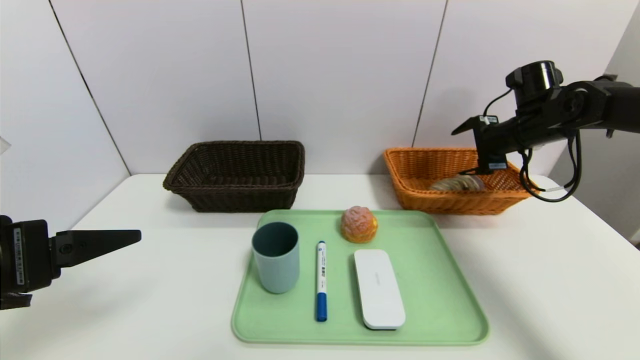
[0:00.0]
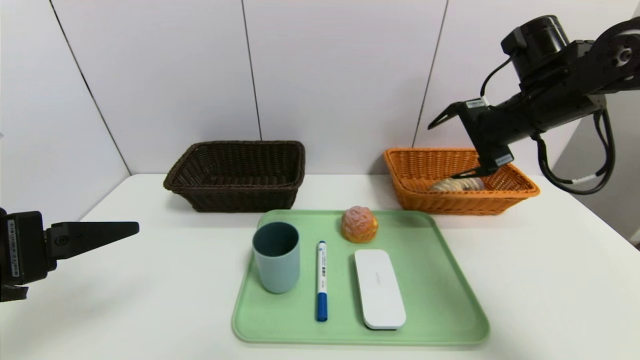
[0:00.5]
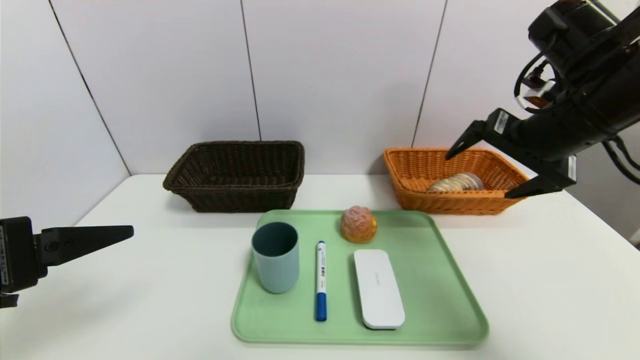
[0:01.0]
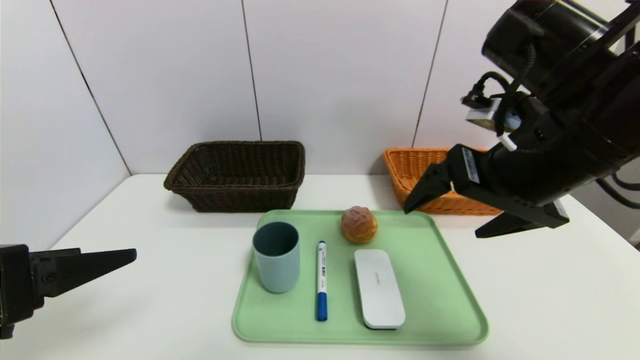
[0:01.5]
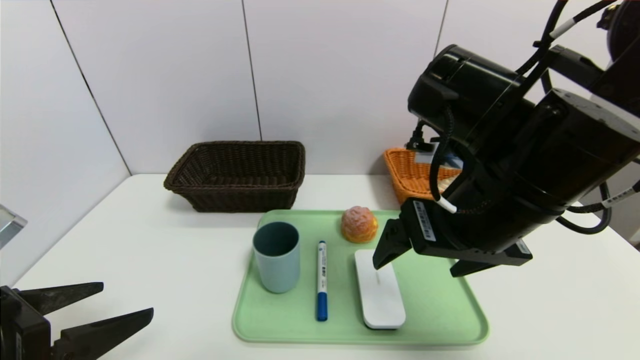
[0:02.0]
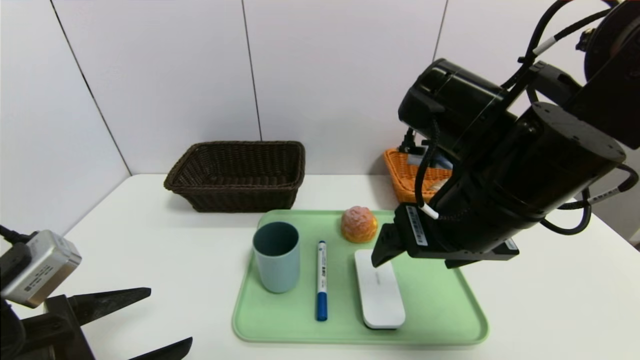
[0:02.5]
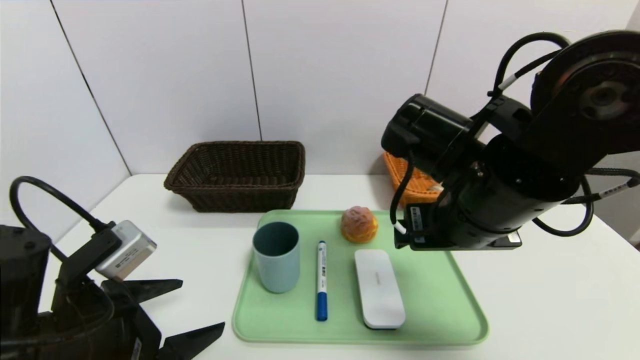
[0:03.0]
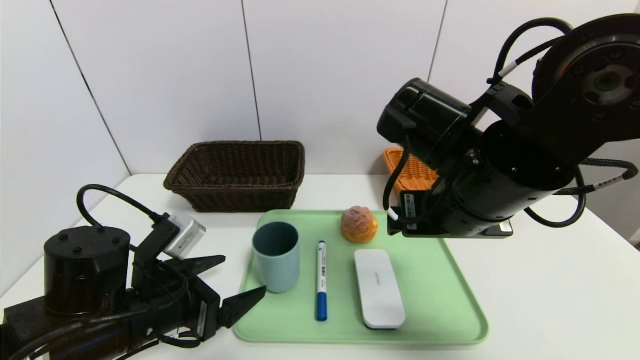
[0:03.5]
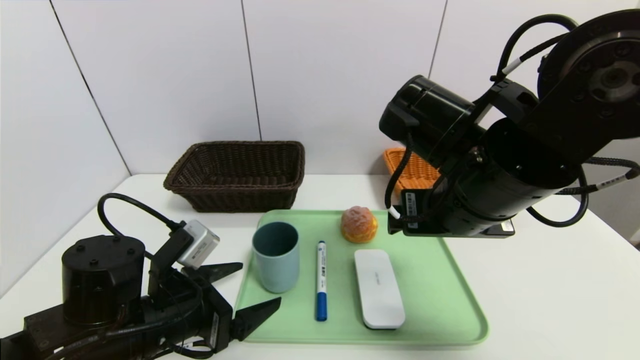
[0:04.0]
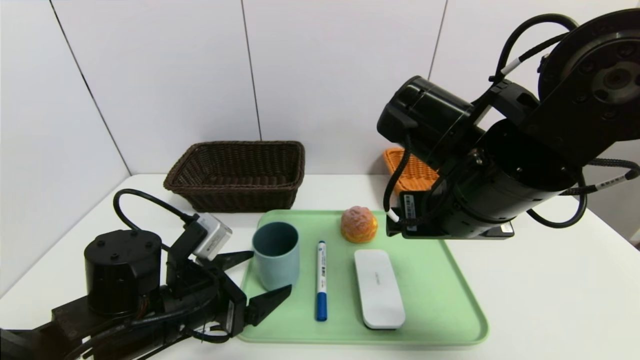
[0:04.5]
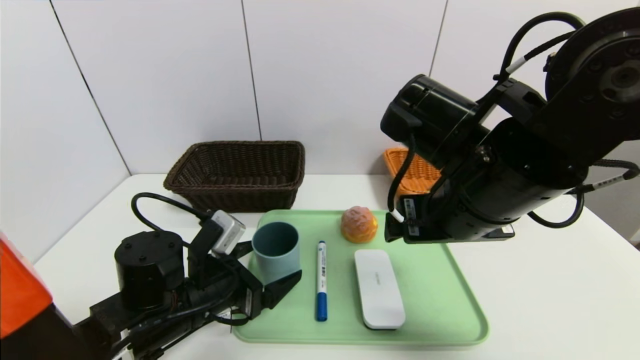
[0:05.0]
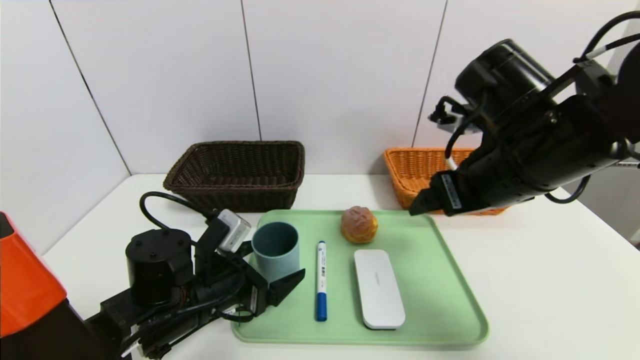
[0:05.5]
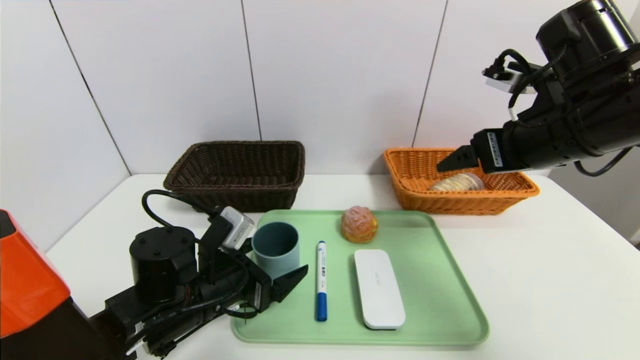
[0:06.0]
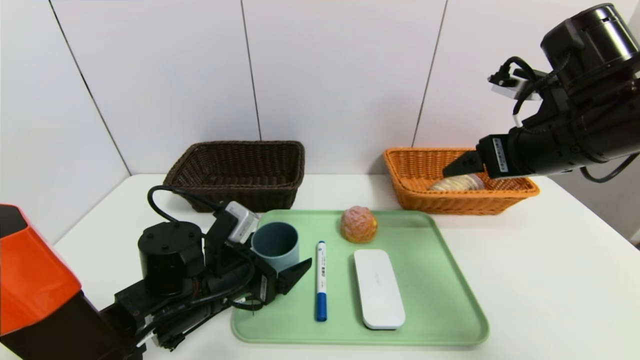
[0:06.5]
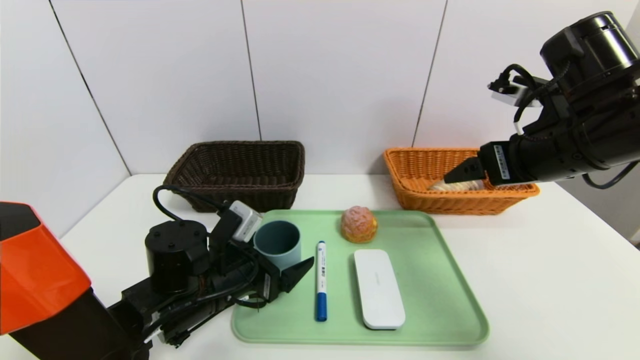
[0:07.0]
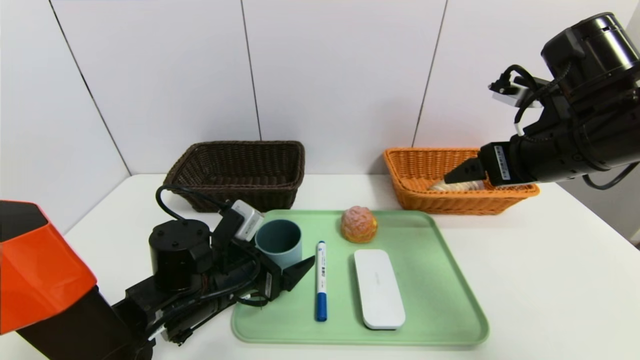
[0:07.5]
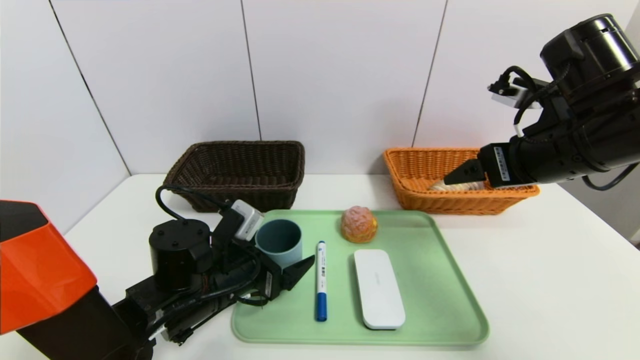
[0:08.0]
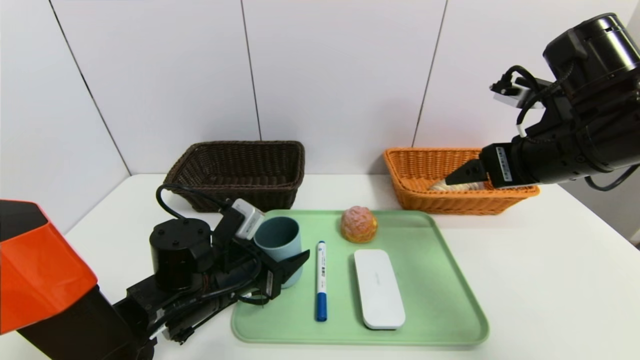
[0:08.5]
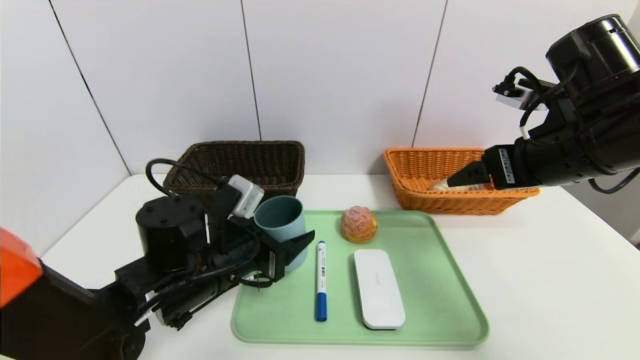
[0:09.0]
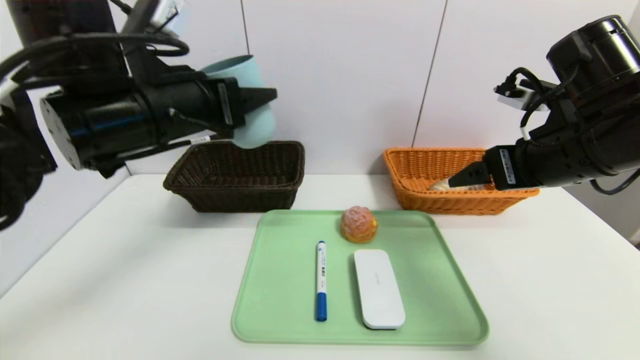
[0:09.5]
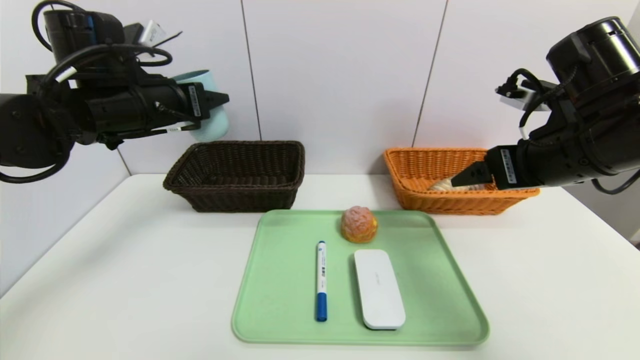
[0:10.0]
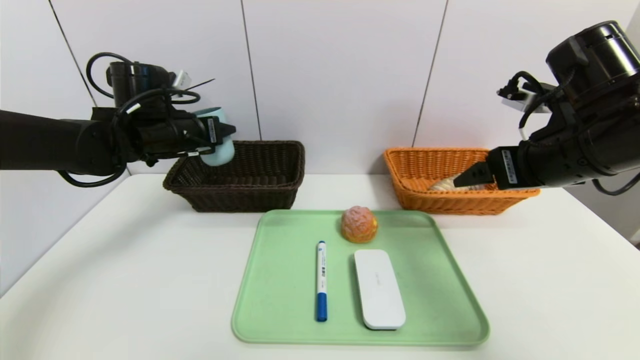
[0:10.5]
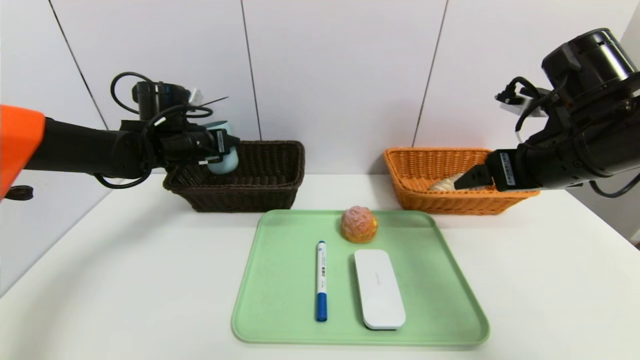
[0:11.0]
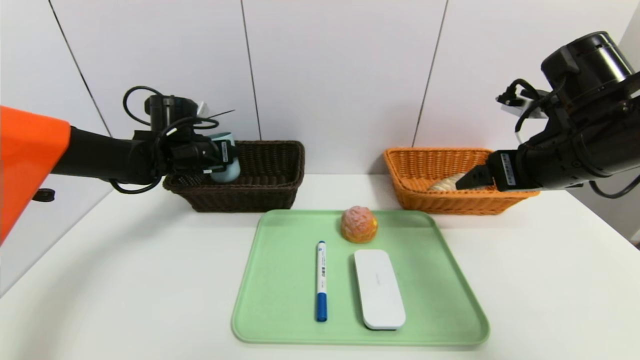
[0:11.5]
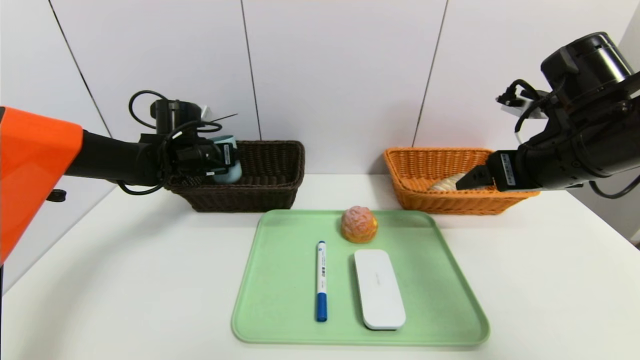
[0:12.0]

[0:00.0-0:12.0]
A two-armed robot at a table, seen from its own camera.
Task of the whole recording: place the food in the right basket with the right gripper, and place the non food items in the left basket with the left gripper.
0:00.0 to 0:02.0: The right gripper shifts some 30 cm backward and to the left; the left gripper shifts by some 5 cm.
0:02.0 to 0:04.0: The left gripper goes roughly 15 cm downward, forward and to the right.
0:04.0 to 0:06.0: The right gripper shifts roughly 10 cm to the right. The left gripper ends up about 5 cm from where it was.
0:06.0 to 0:08.0: The grippers stay close to where they were, moving slightly.
0:08.0 to 0:10.0: The left gripper is displaced upward, forward and to the left by some 25 cm.
0:10.0 to 0:12.0: The left gripper goes approximately 15 cm downward and forward.

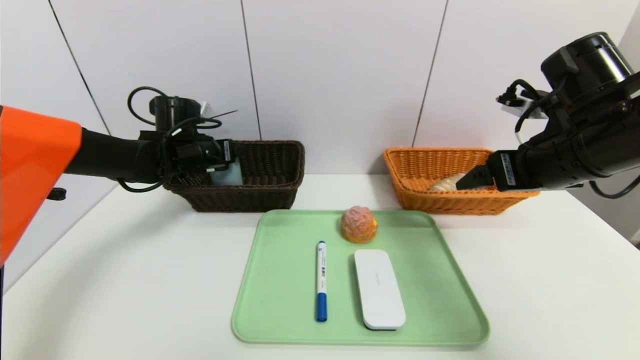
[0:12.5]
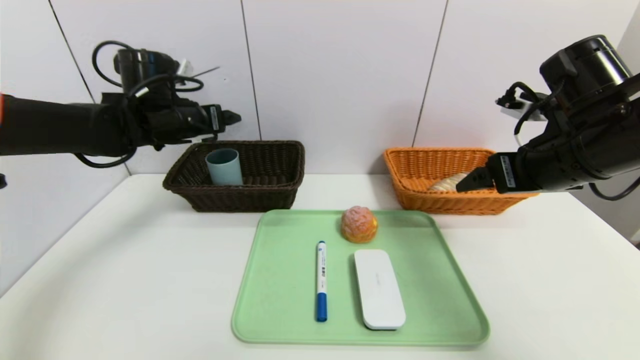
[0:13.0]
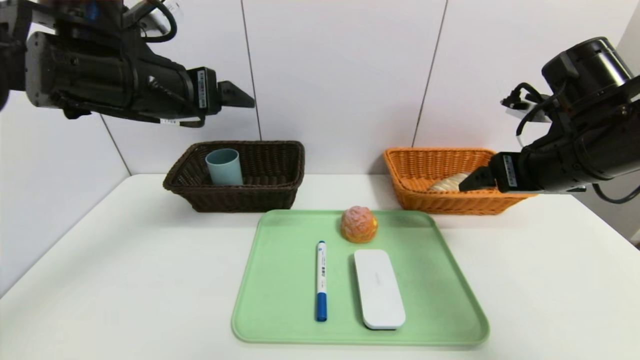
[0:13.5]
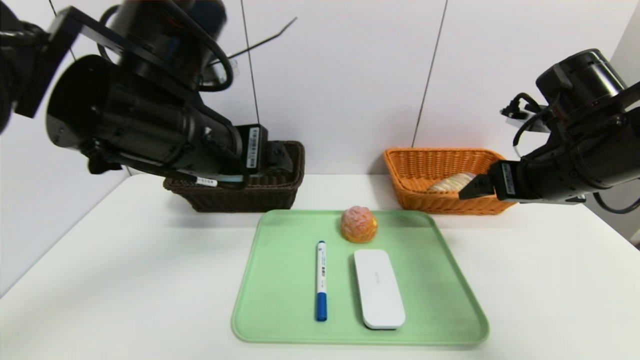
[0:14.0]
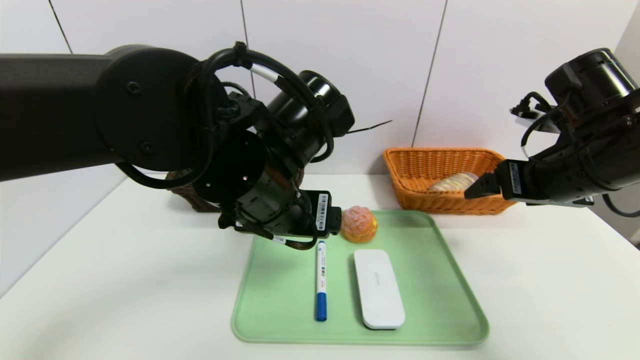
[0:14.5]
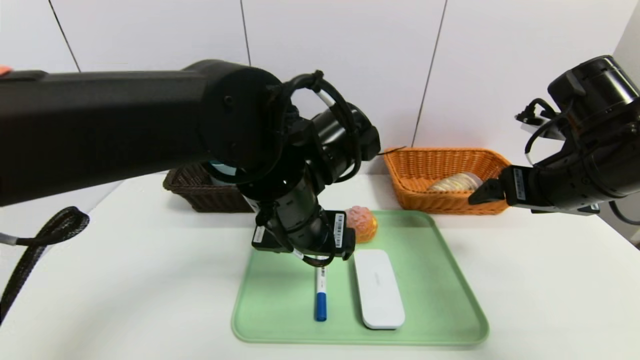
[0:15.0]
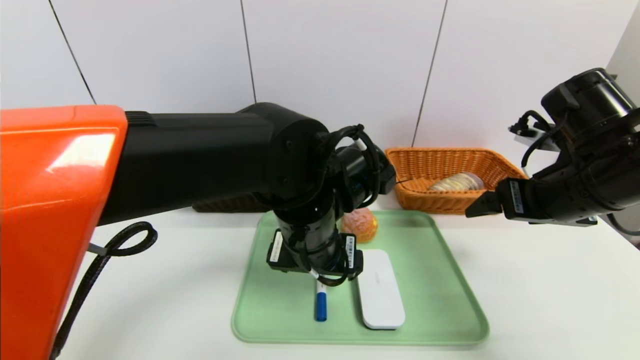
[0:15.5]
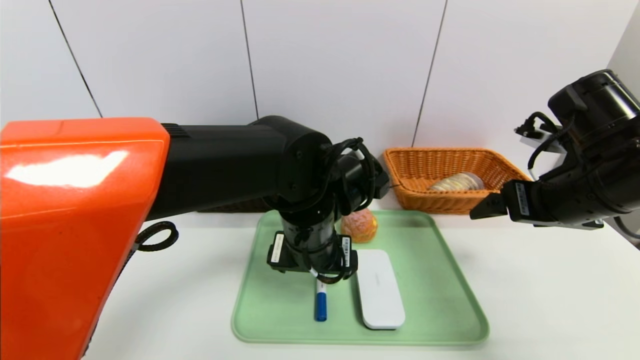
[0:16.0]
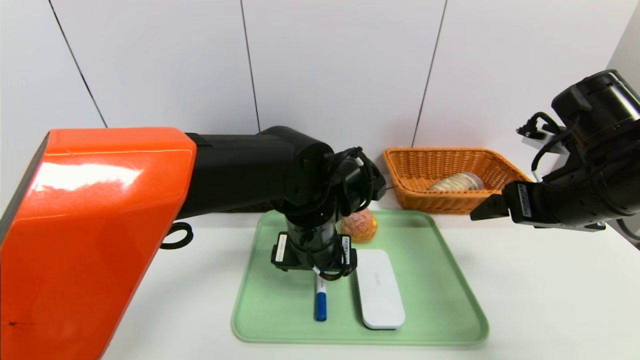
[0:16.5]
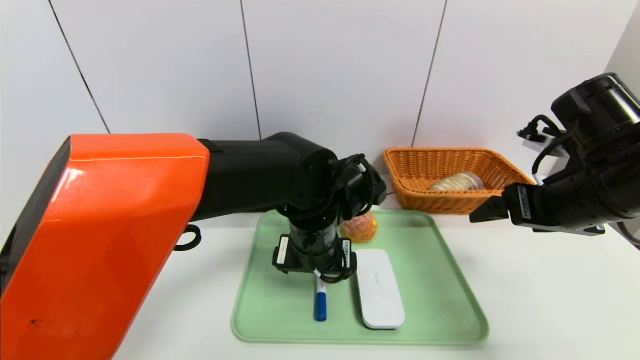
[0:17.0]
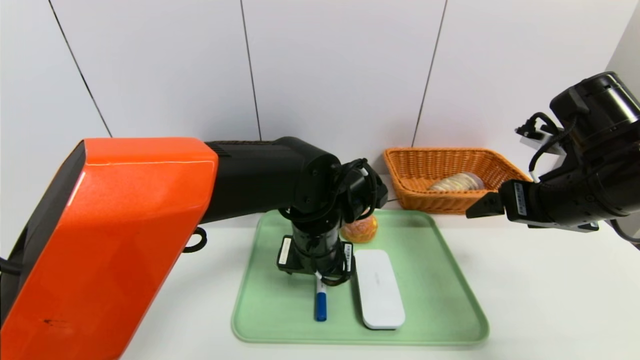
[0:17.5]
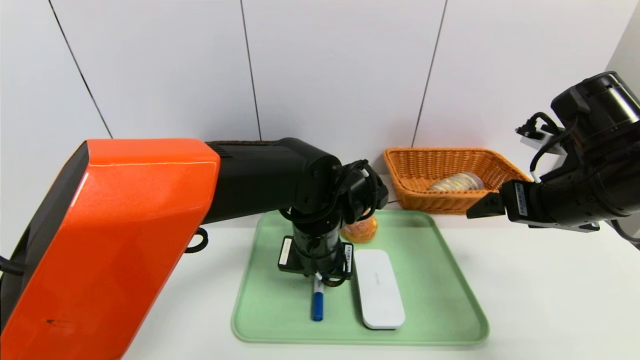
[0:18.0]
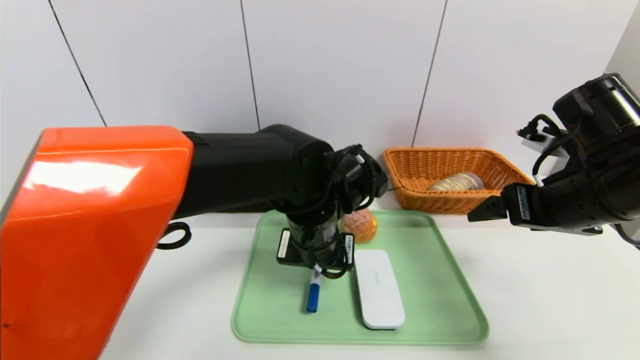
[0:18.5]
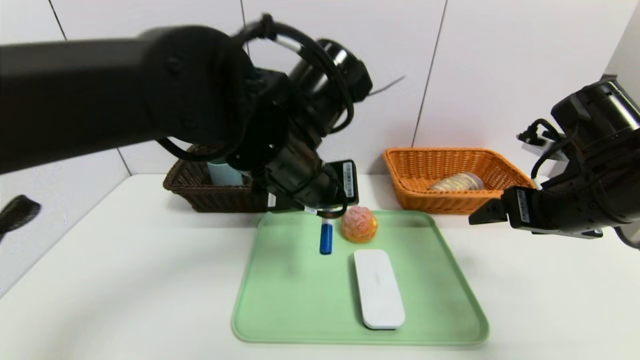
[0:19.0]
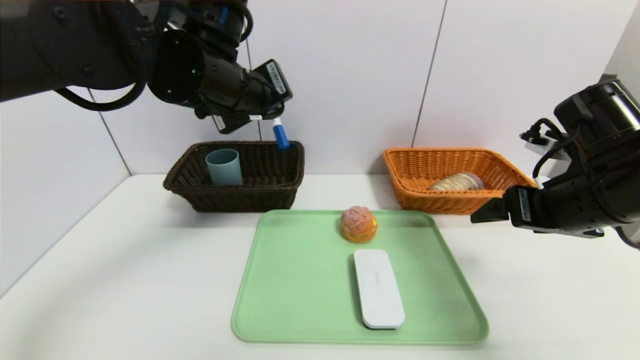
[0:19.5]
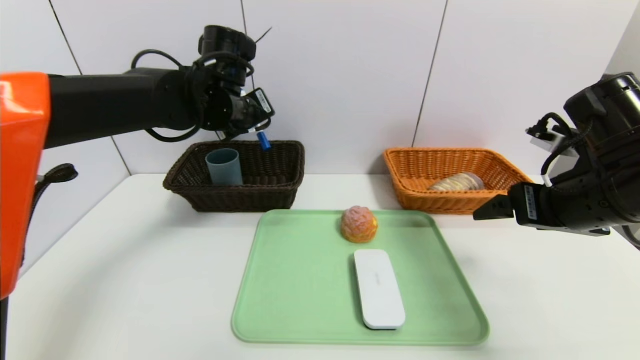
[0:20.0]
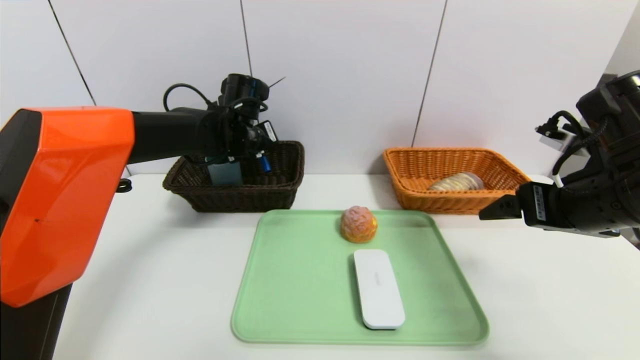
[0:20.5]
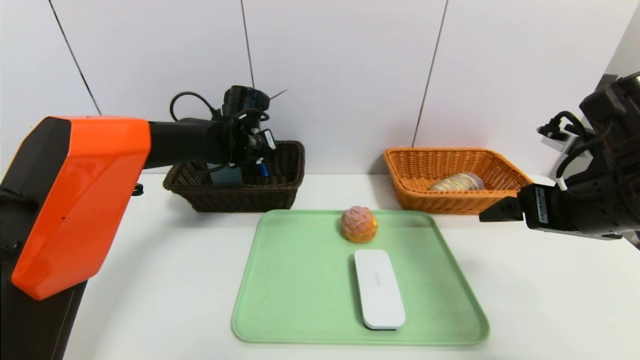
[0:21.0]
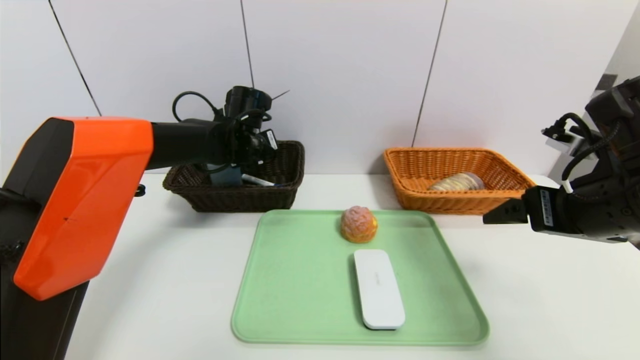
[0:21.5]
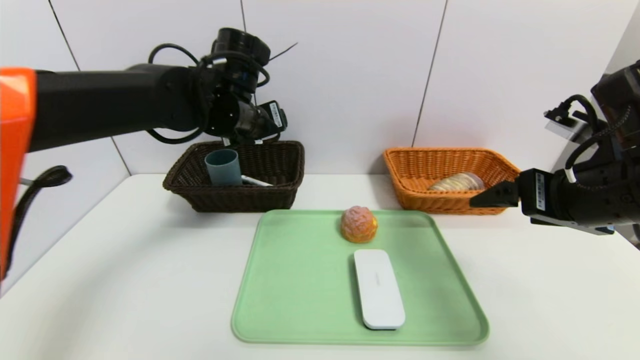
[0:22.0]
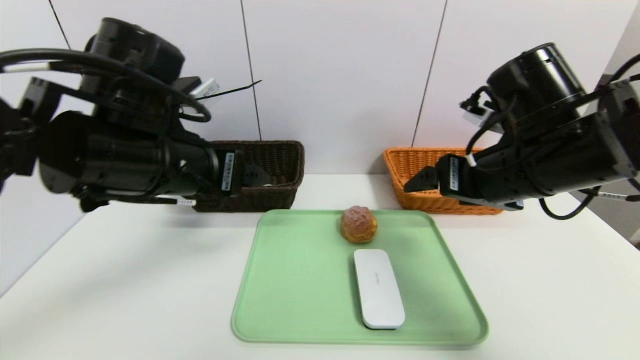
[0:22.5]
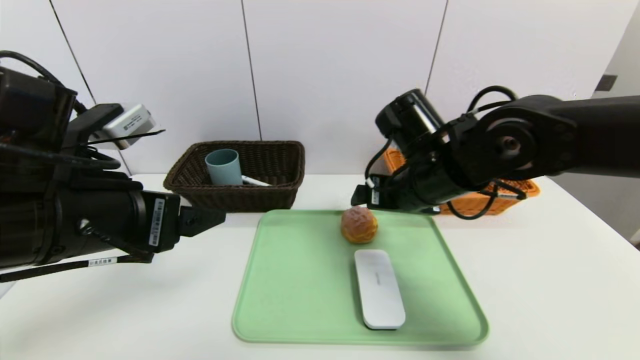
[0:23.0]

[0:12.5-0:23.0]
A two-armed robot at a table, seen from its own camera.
Task of the whole recording: place the food in the right basket with the right gripper, and place the non food items in the left basket with the left gripper.
Step, 0:13.5 to 0:21.5: Grasp the blue marker and put it in the left basket.
0:12.5 to 0:14.5: The left gripper heads backward and to the right, covering approximately 30 cm.
0:14.5 to 0:16.5: The left gripper travels downward by about 10 cm.
0:16.5 to 0:19.0: The left gripper goes roughly 10 cm upward, and closes its fingers.
0:19.0 to 0:21.0: The left gripper heads forward, to the left and downward, covering some 25 cm.
0:21.0 to 0:23.0: The right gripper heads to the left and forward, covering some 20 cm, while the left gripper shifts about 30 cm backward, and opens up.
